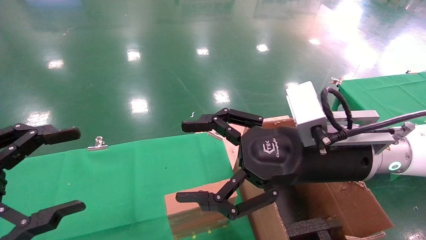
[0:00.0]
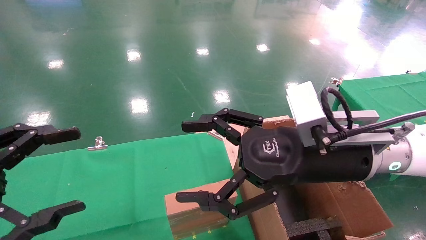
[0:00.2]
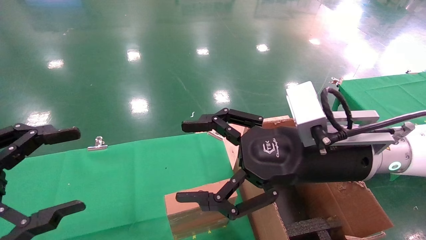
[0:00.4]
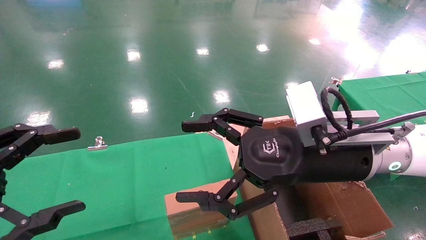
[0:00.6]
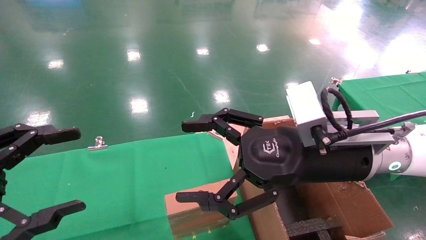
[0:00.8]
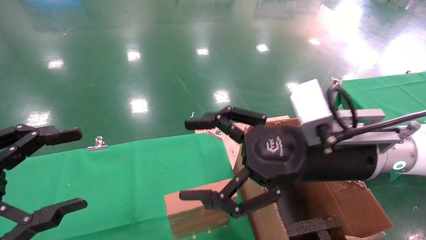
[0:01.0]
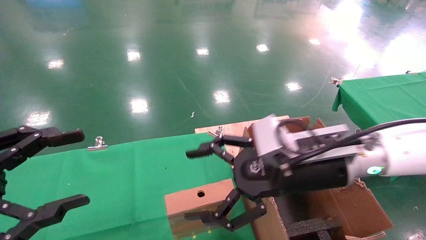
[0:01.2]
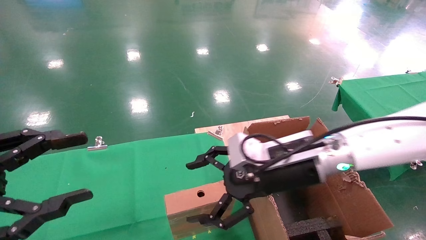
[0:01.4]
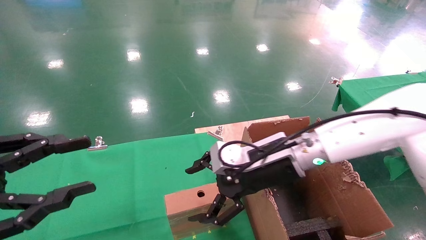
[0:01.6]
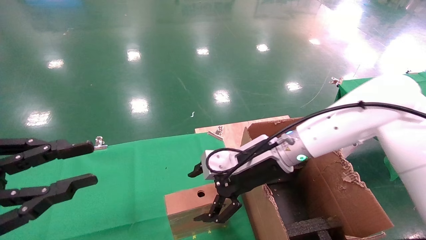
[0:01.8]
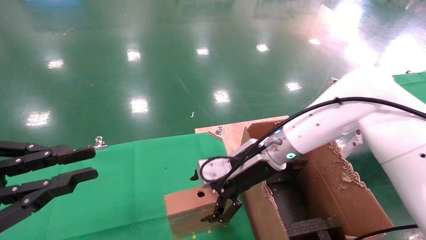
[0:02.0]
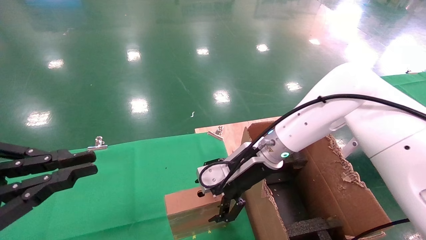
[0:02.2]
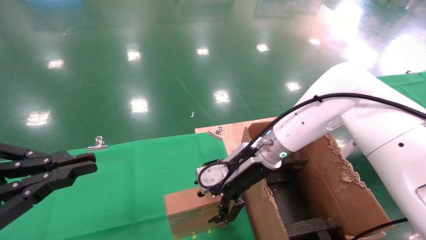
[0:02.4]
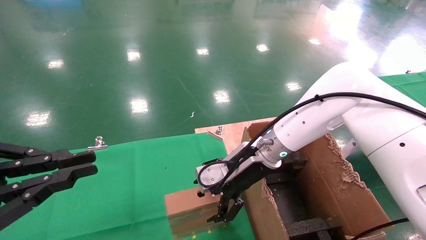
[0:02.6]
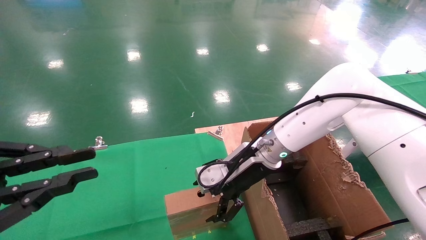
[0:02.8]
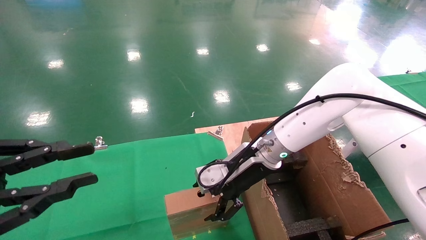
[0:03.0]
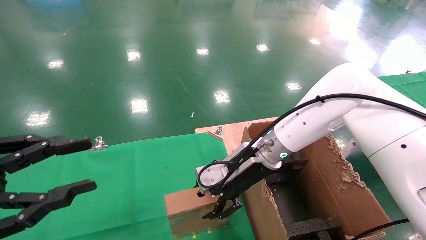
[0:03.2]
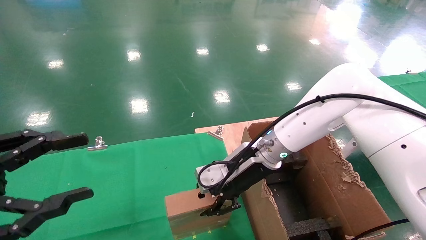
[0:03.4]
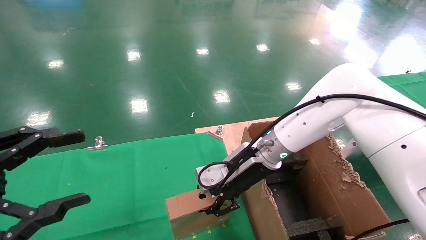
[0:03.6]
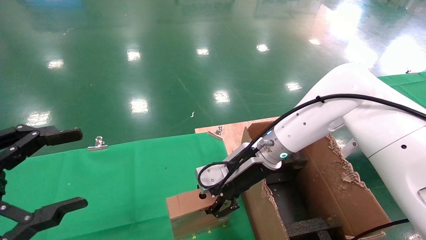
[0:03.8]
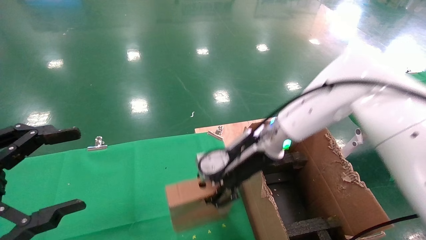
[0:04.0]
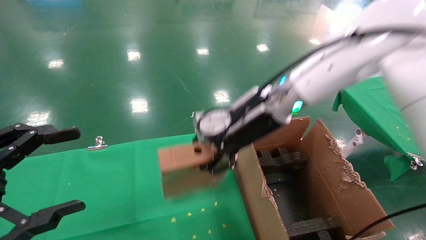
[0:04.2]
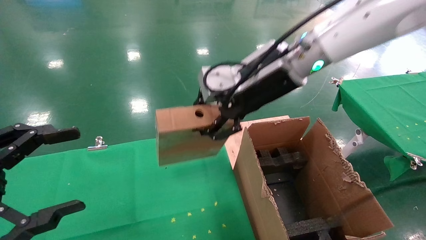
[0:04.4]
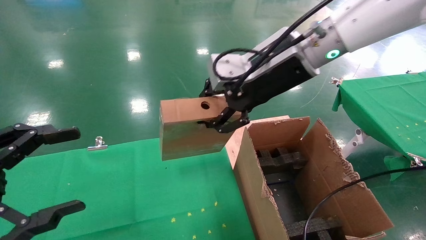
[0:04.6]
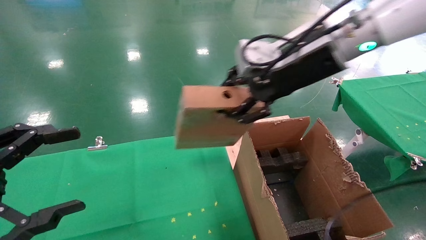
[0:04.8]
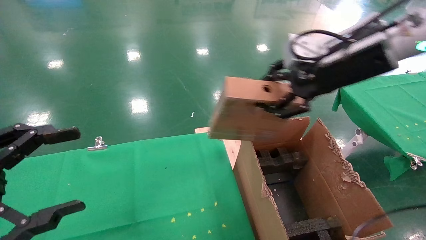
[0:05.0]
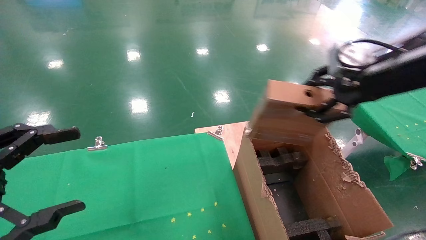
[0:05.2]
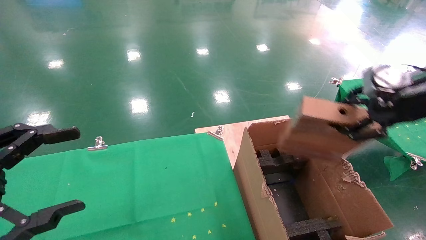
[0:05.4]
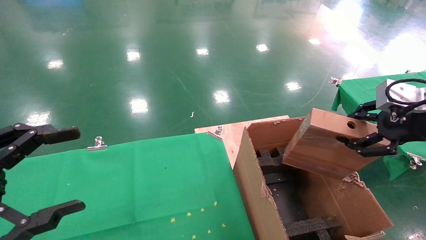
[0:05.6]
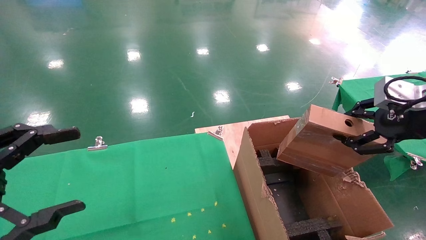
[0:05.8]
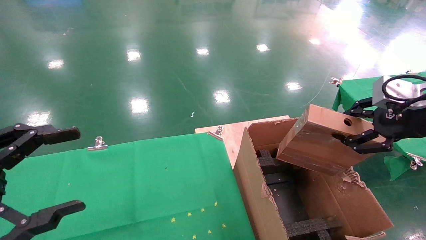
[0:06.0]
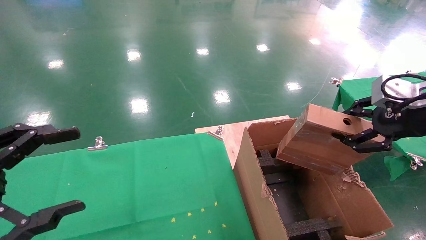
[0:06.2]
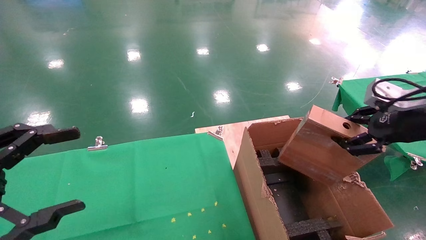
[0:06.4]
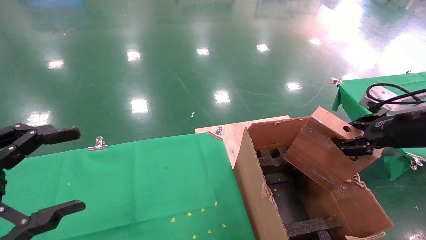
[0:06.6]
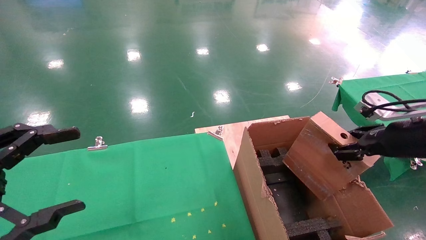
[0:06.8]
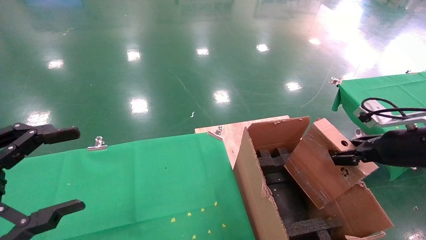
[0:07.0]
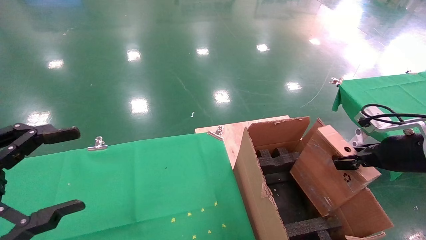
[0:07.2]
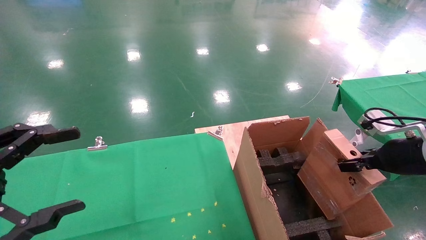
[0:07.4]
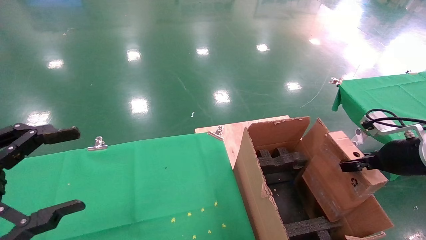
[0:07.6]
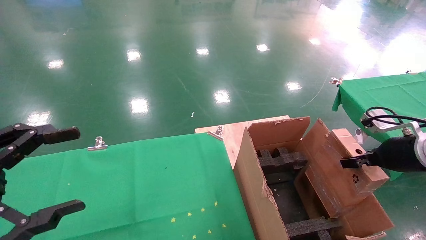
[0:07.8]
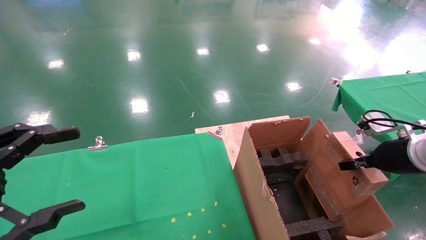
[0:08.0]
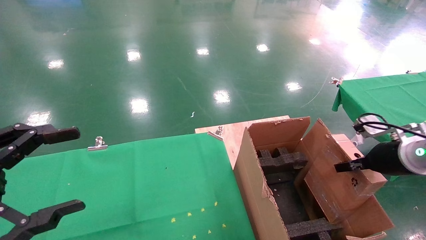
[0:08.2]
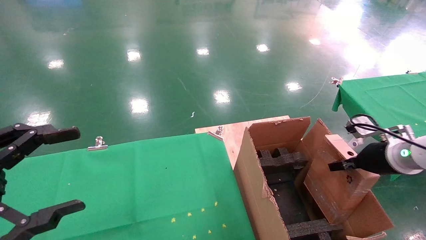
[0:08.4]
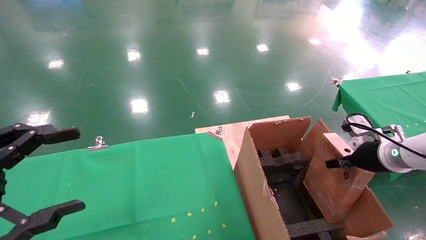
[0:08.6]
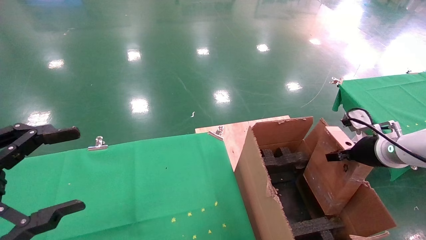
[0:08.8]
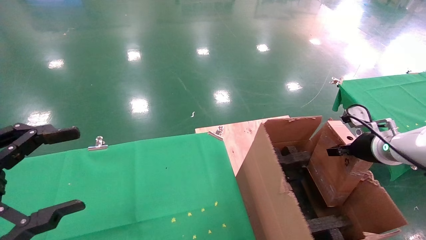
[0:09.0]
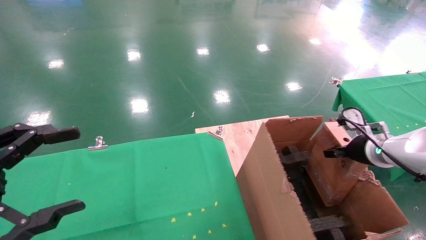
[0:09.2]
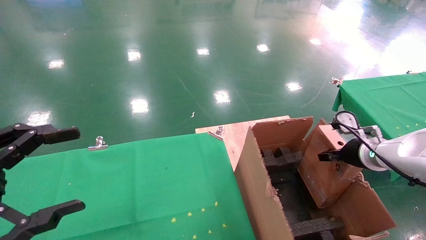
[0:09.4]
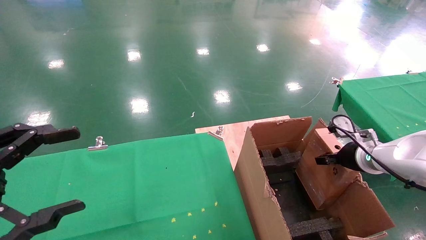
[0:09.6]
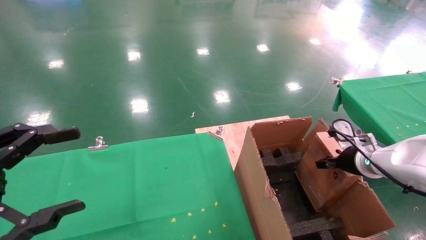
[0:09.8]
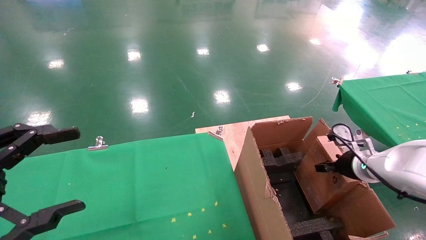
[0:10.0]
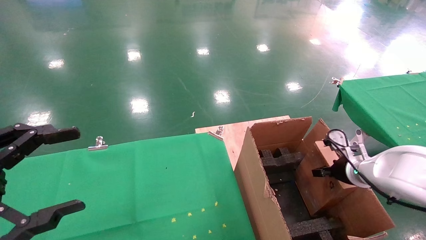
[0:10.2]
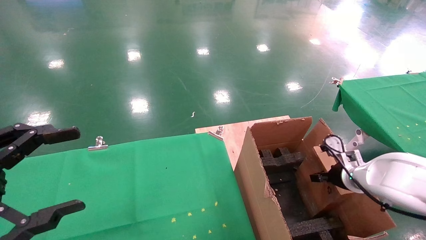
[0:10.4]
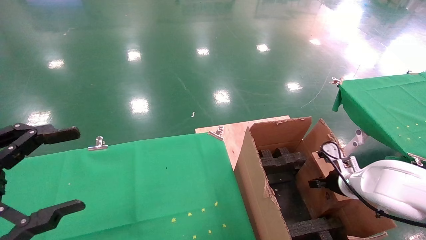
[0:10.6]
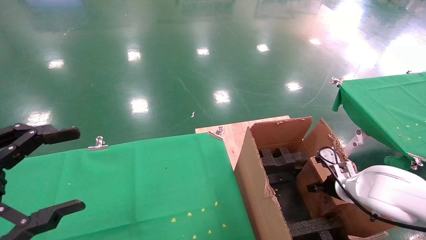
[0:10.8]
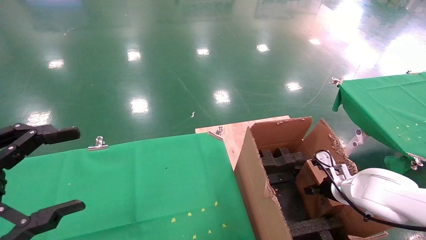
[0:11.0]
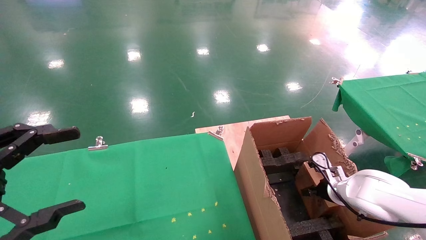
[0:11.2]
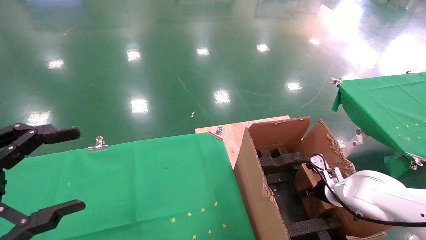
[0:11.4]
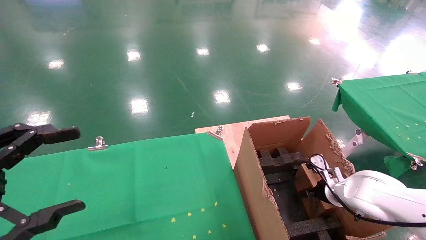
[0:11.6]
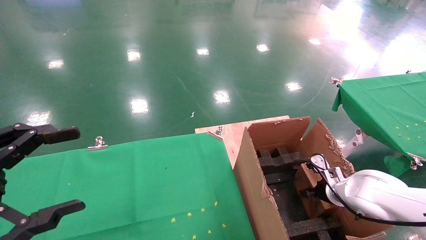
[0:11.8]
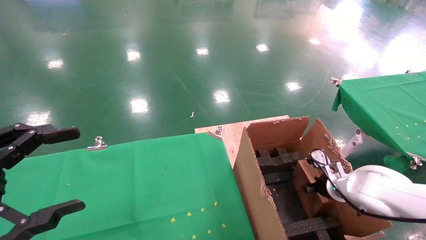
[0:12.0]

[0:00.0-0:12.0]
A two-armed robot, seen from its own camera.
Task of the whole recording: using a robotic arm to pick up a cardboard box and palace it the carton.
Step, 0:01.2 to 0:04.0: Pick up the mouse and the power cord paper box.
Step, 0:04.2 to 0:11.8: Place the mouse and the power cord paper box into the container.
0:00.0 to 0:01.6: The right gripper goes approximately 10 cm forward and downward. Meanwhile the left gripper closes up.
0:01.6 to 0:03.0: The left gripper closes; the right gripper shifts by about 5 cm.
0:03.0 to 0:04.4: The left gripper opens up. The right gripper moves upward, about 15 cm, and closes.
0:04.4 to 0:06.0: The right gripper is displaced to the right and backward by about 30 cm.
0:06.0 to 0:07.6: The right gripper is displaced downward by roughly 10 cm.
0:07.6 to 0:09.0: The right gripper moves forward, about 5 cm.
0:09.0 to 0:10.4: The right gripper is displaced downward by about 10 cm.
0:10.4 to 0:12.0: The right gripper changes place by roughly 5 cm.

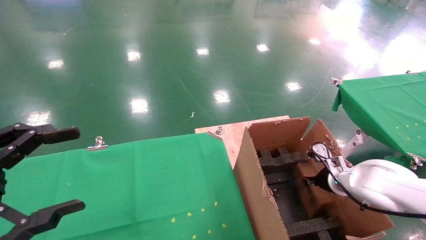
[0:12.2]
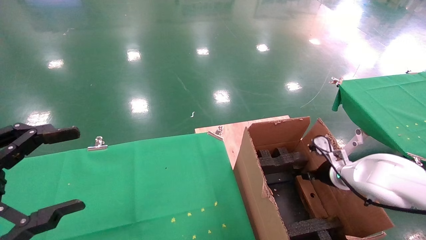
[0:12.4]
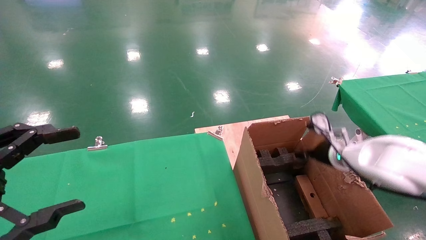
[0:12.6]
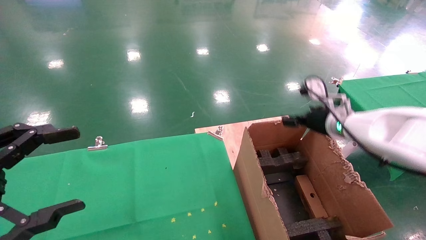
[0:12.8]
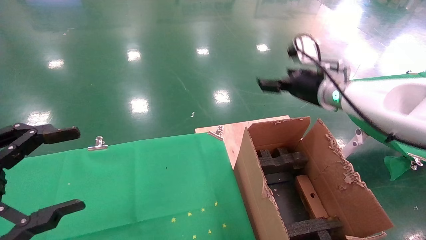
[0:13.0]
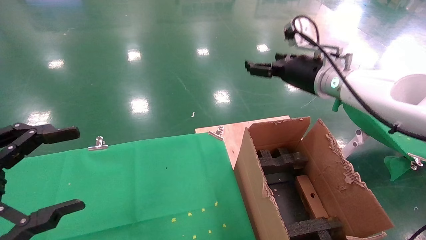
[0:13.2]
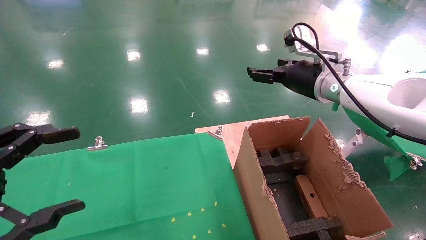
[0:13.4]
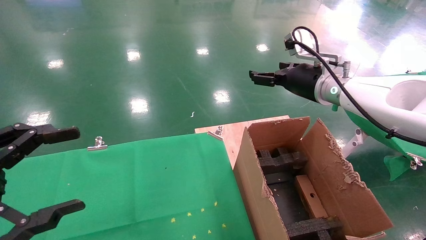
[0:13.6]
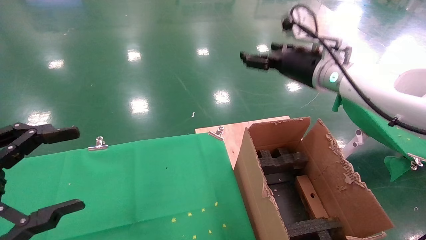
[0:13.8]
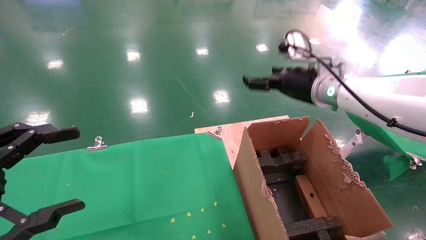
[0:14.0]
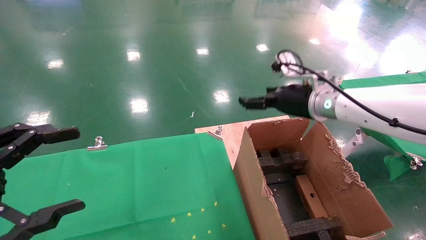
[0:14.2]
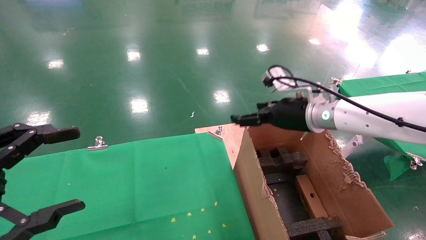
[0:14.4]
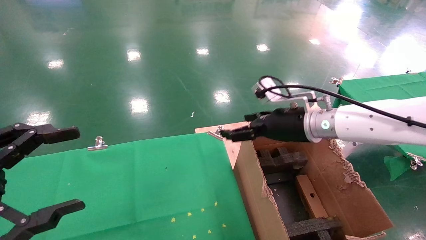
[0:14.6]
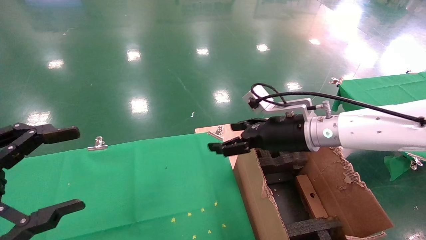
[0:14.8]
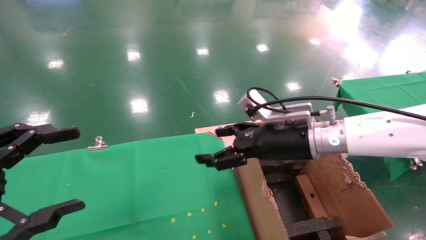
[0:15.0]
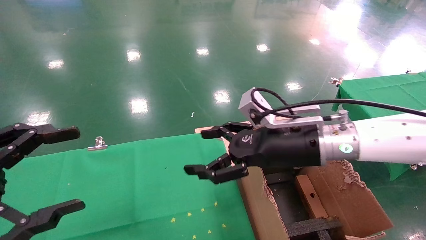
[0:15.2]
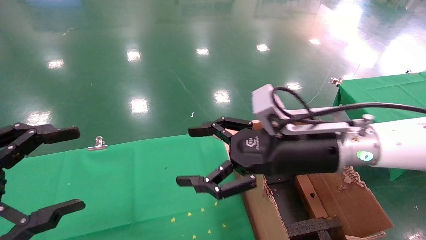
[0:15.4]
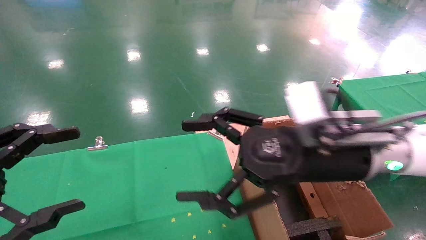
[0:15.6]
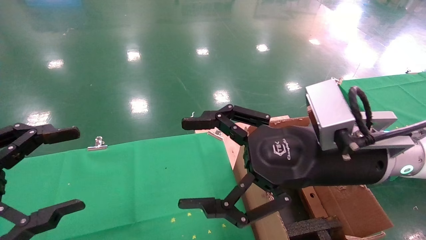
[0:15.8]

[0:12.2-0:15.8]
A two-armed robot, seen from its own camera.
Task of the whole recording: using a robotic arm to pick up a cardboard box and palace it the carton.
0:12.2 to 0:14.0: The right gripper goes some 25 cm upward and to the left, and opens its fingers.
0:14.0 to 0:15.8: The right gripper moves backward and to the left, roughly 20 cm.

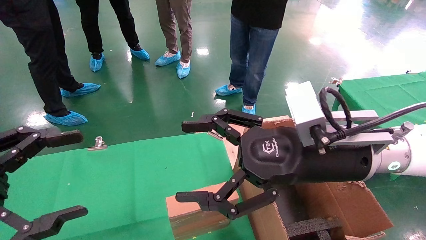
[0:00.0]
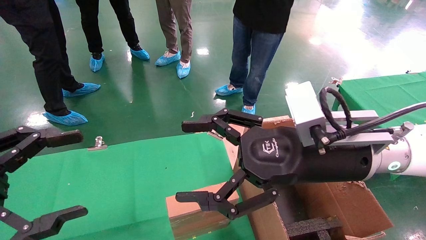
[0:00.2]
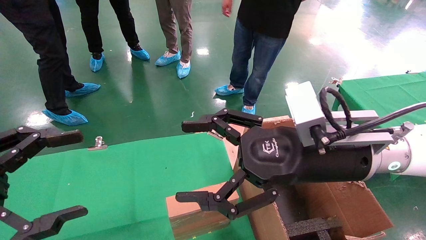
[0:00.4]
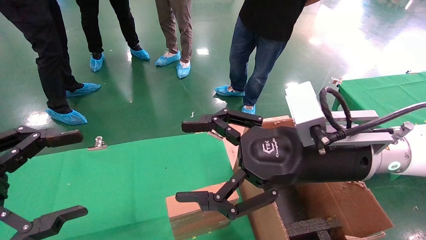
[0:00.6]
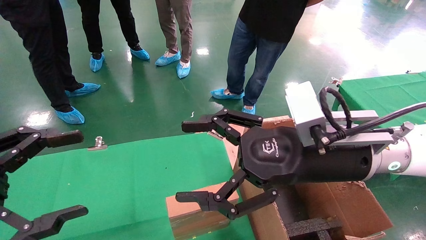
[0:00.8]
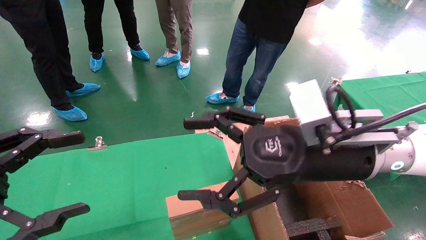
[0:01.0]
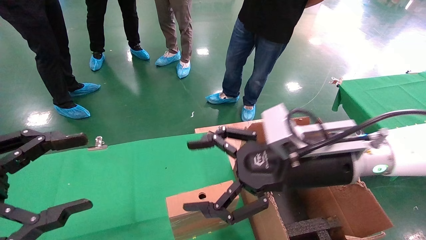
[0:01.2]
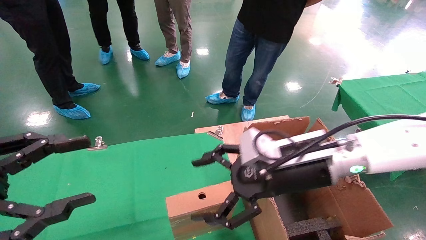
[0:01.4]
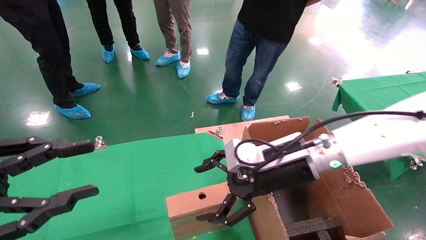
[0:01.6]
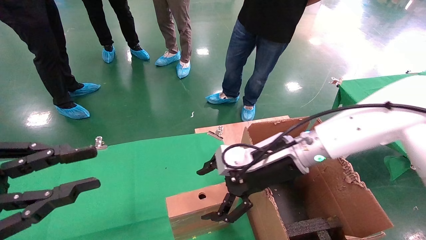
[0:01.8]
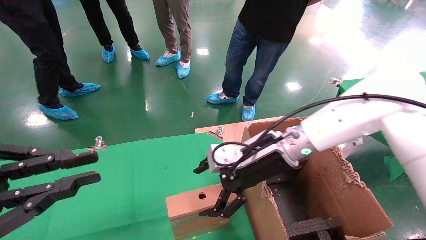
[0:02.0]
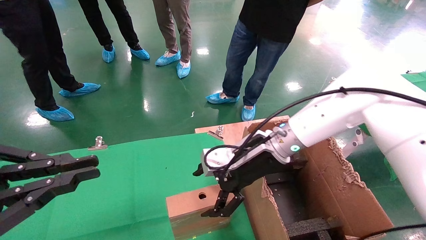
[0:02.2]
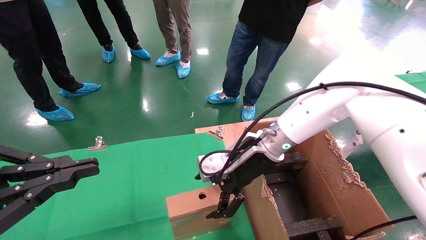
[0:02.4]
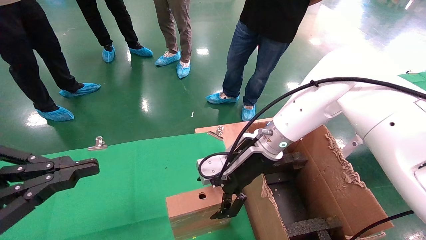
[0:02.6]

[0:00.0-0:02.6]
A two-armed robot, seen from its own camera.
Task of the whole recording: using a robotic arm to pick up a cardboard box and palace it the carton.
0:01.2 to 0:02.6: The right gripper moves forward and to the left, some 15 cm; the left gripper closes its fingers.
